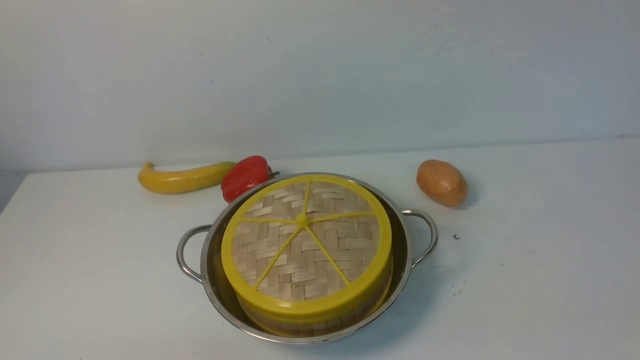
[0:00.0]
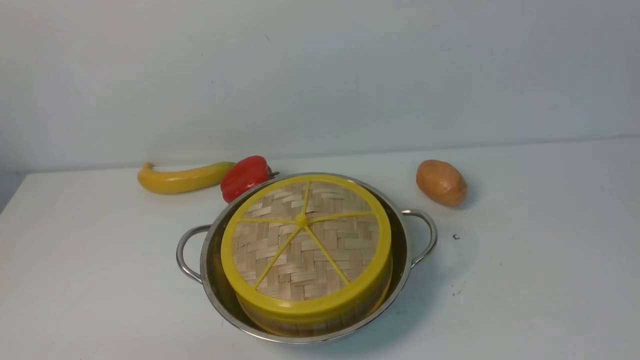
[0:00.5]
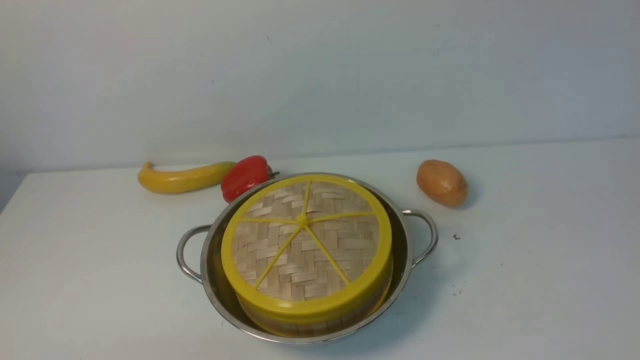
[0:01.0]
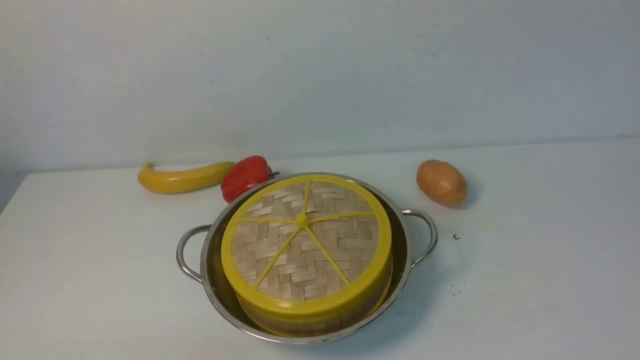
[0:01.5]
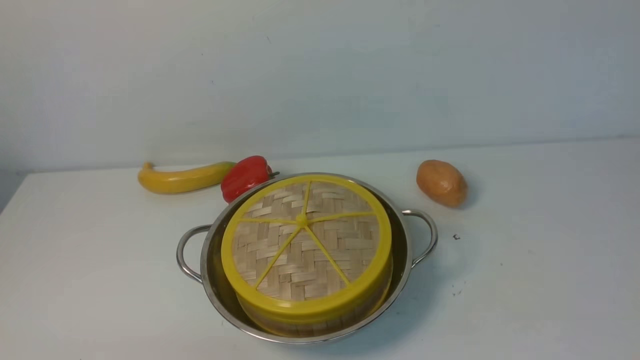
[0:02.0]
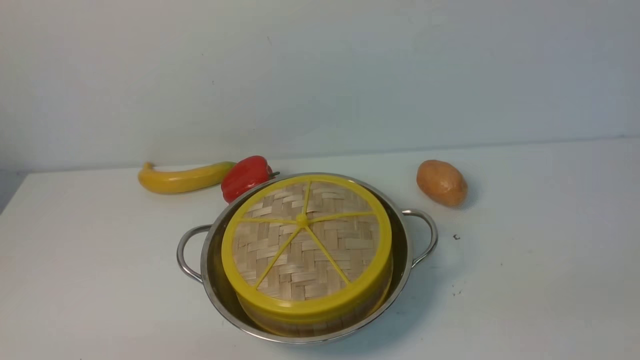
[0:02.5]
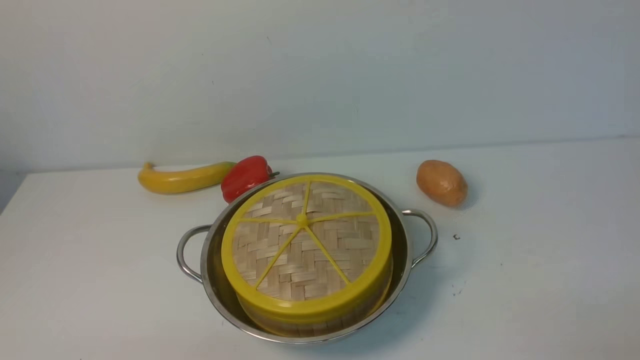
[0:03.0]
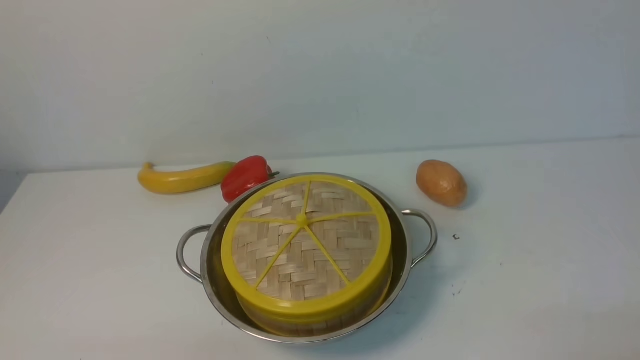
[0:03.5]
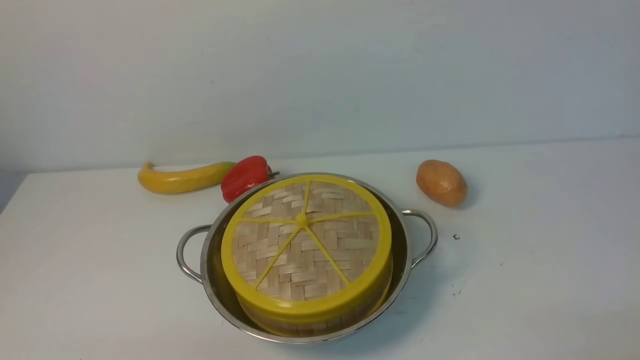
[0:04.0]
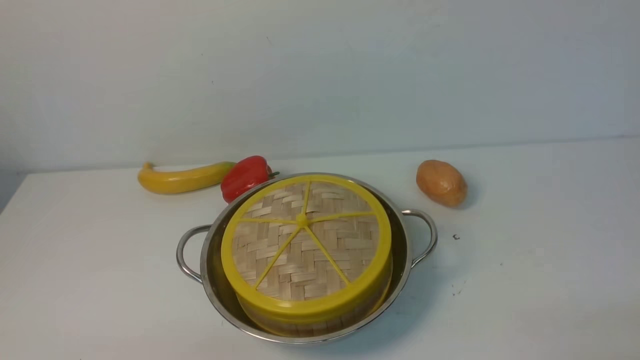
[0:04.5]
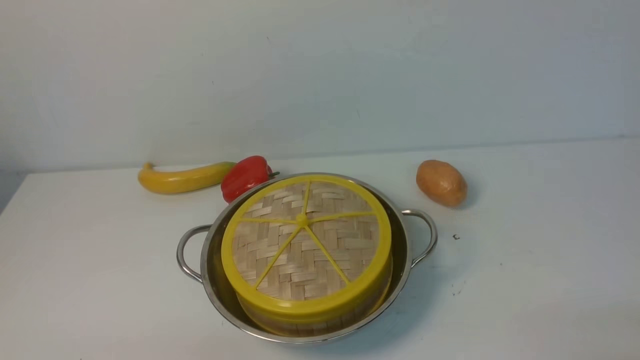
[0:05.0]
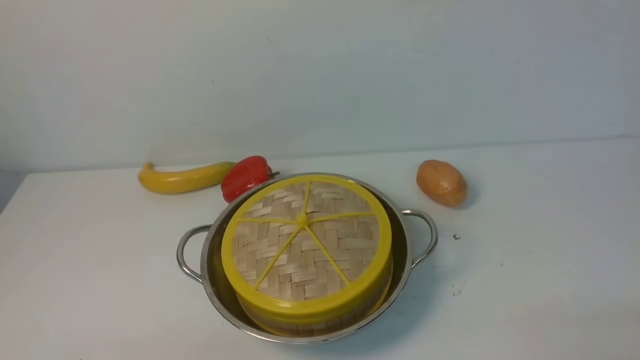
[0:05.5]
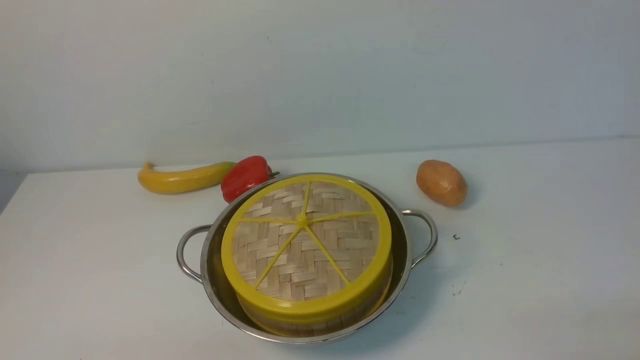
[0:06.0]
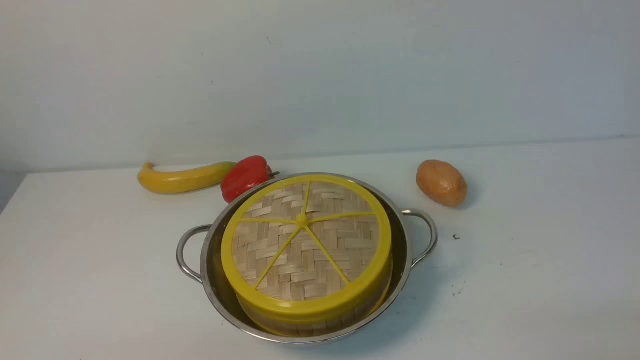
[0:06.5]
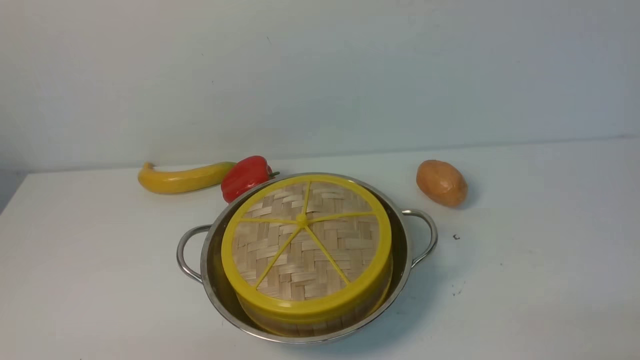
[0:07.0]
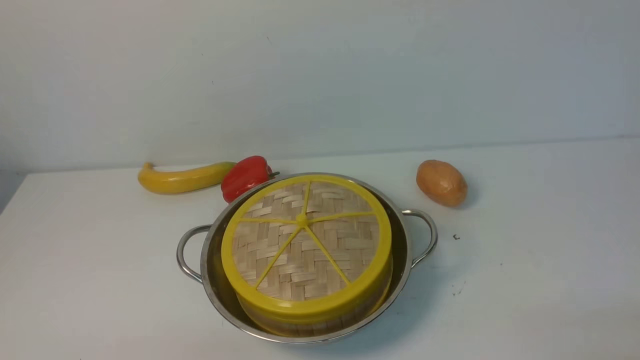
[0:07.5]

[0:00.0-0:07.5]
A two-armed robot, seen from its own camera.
Task of the whole recording: place the steamer in the pot on the white table, and put the lid on the steamer.
0:05.5 to 0:07.5: Neither gripper changes place.
